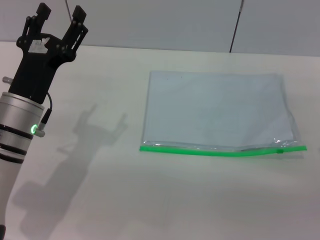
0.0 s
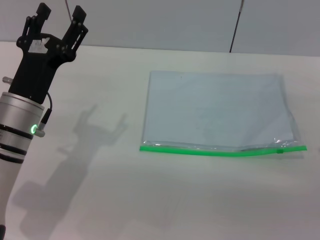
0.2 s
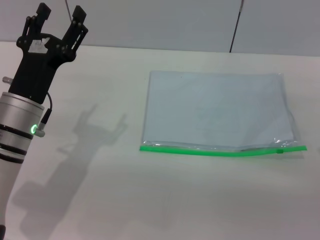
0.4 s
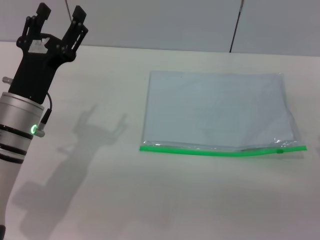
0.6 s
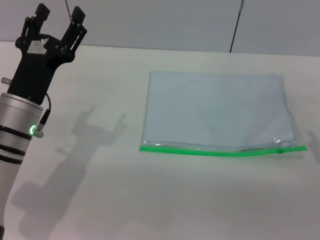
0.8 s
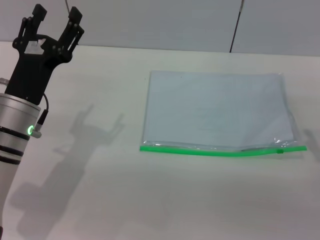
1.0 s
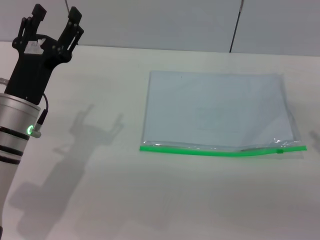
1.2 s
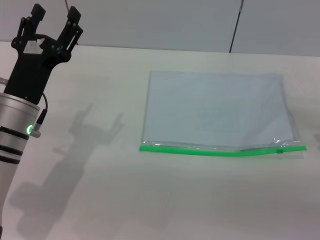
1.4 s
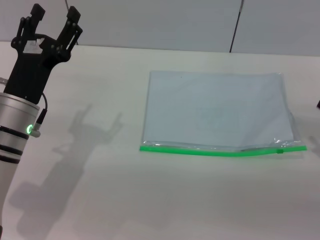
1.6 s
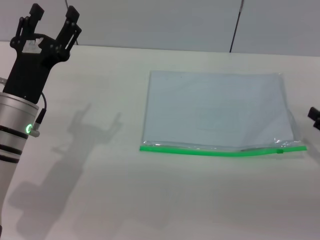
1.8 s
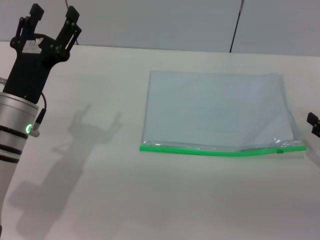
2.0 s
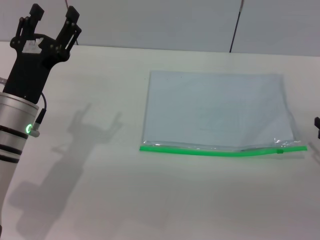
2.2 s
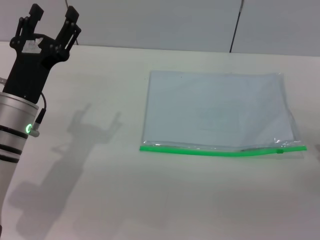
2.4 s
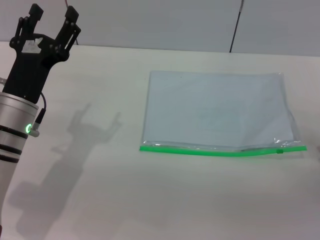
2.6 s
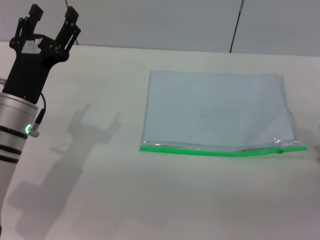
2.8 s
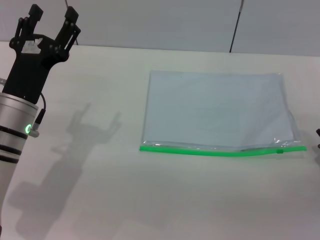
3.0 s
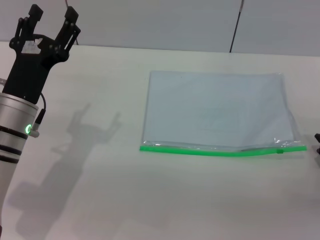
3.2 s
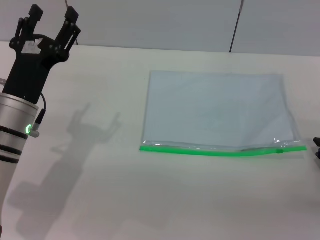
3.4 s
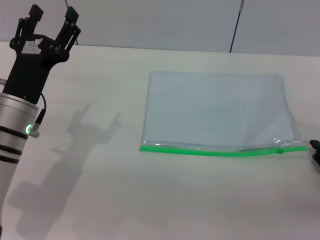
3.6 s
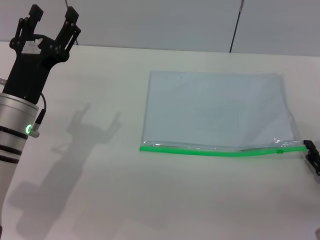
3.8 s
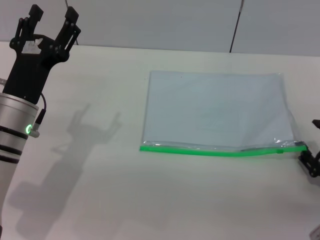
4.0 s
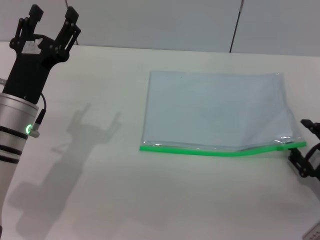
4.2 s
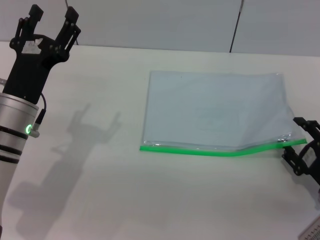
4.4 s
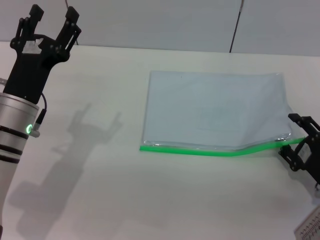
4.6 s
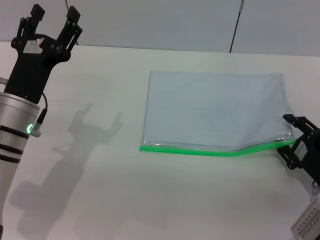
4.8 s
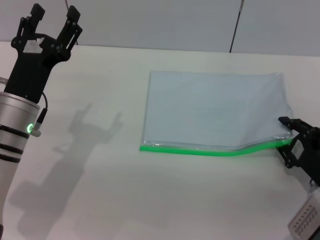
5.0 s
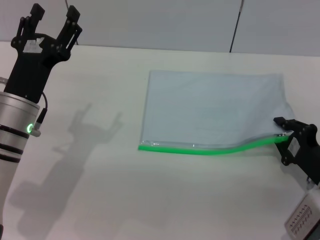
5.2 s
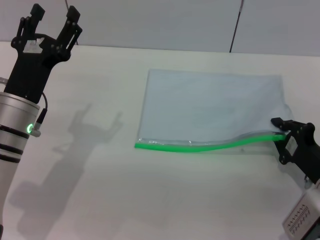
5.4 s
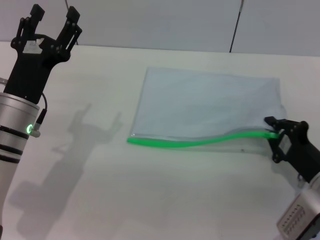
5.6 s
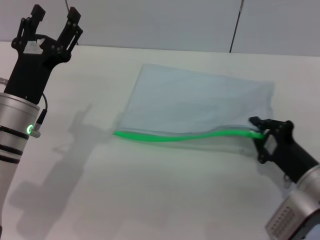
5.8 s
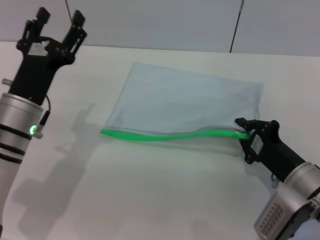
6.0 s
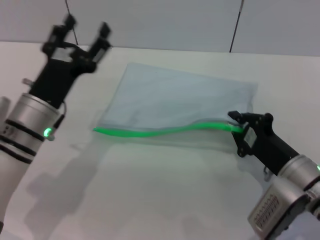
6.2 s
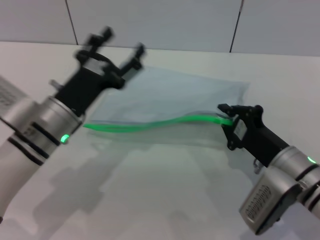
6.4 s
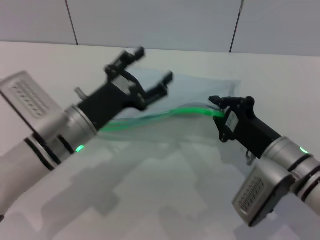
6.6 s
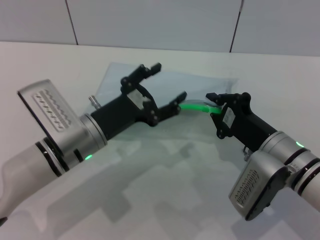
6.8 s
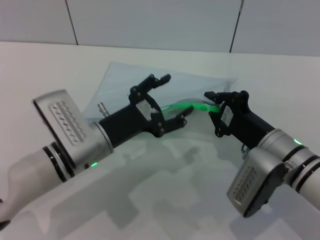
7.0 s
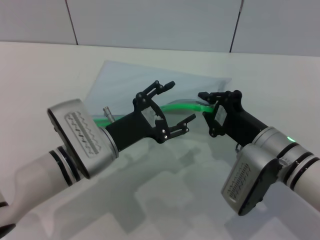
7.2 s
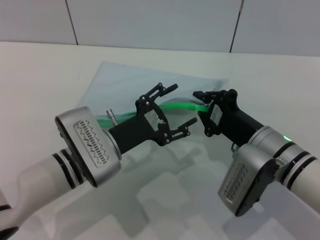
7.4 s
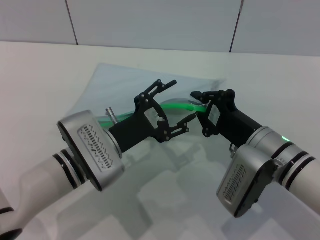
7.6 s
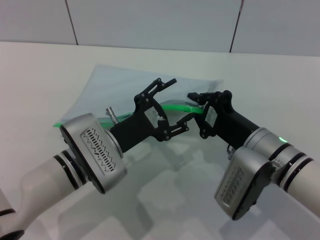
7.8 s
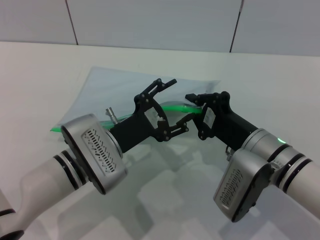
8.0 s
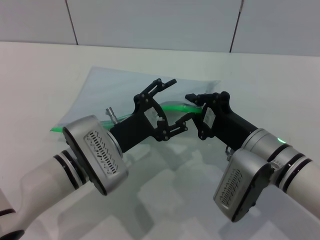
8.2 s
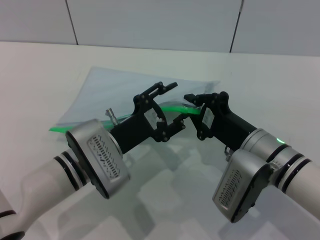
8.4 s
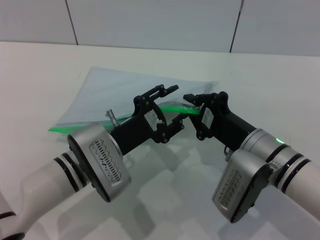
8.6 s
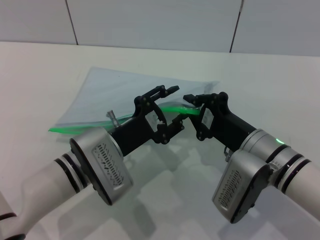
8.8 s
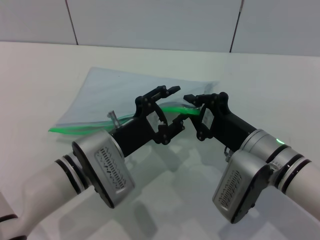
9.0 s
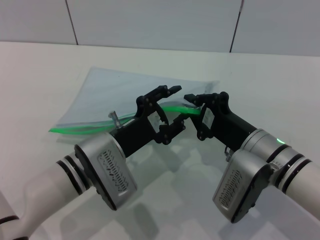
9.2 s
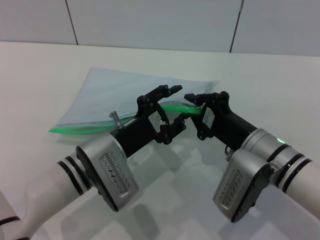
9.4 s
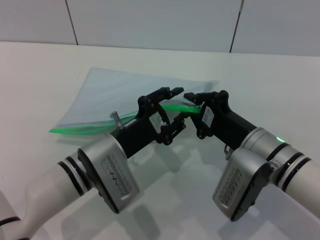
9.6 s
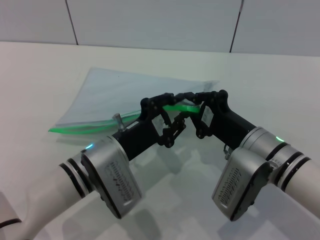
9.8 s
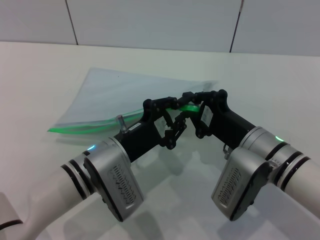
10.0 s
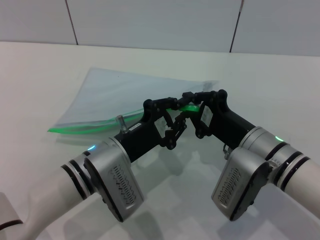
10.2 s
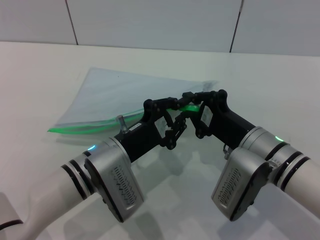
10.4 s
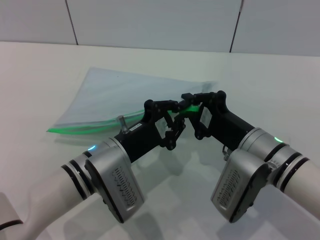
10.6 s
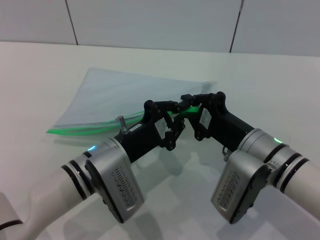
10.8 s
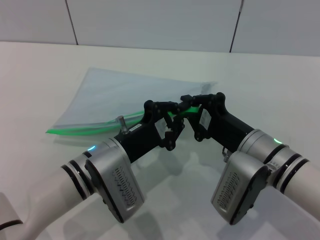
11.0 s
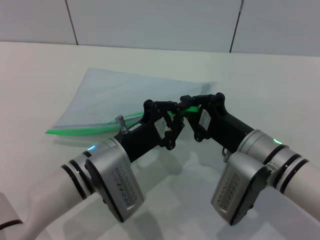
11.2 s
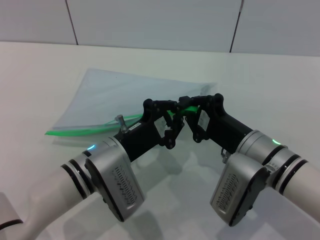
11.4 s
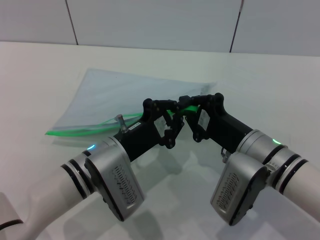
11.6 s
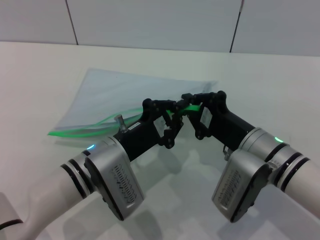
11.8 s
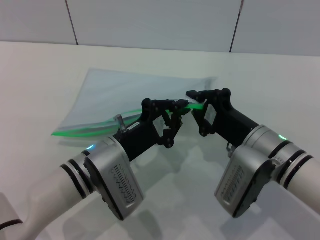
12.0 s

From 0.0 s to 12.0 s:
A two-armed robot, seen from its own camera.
Step, from 0.0 s to 6.4 s: Pick up the transparent plastic bag with the right gripper.
From 3.0 s to 4.4 s: The grippers stay close to where they were, moving slightly.
From 4.4 s to 6.0 s: The right gripper shifts about 5 cm to the left, and closes its fingers.
From 6.0 s to 7.6 s: The left gripper heads to the right, covering approximately 10 cm; the right gripper is displaced to the left by roughly 5 cm.
From 7.6 s to 9.0 s: The grippers move only a little.
From 9.0 s to 10.4 s: The left gripper closes.
From 10.4 s to 12.0 s: Neither gripper changes place.

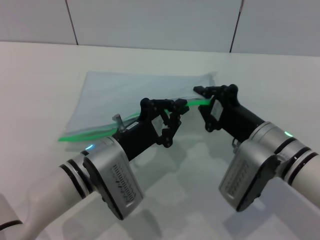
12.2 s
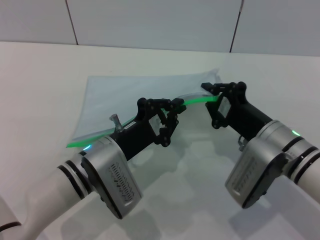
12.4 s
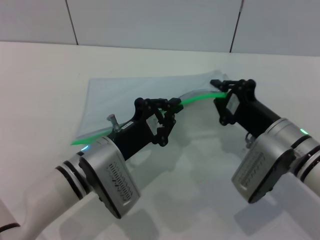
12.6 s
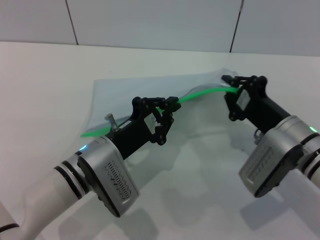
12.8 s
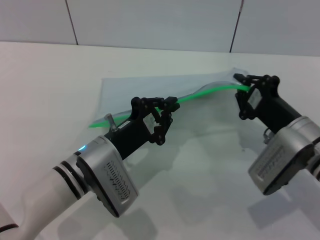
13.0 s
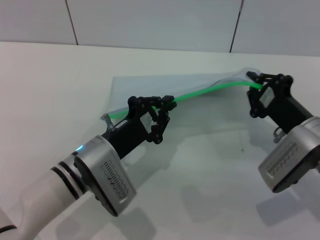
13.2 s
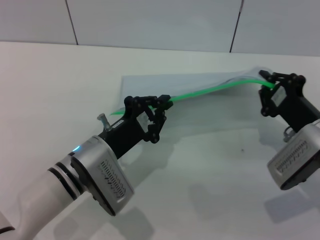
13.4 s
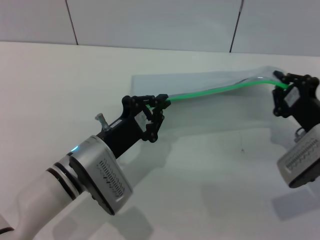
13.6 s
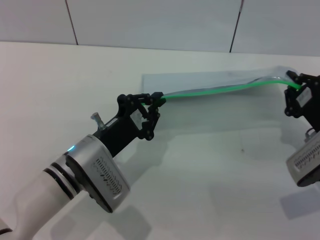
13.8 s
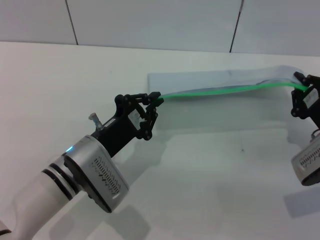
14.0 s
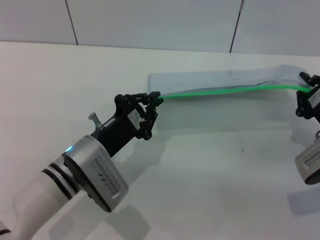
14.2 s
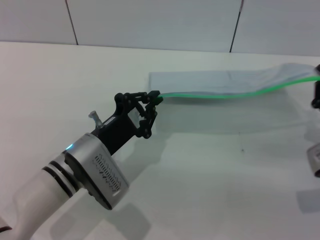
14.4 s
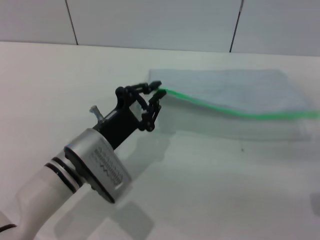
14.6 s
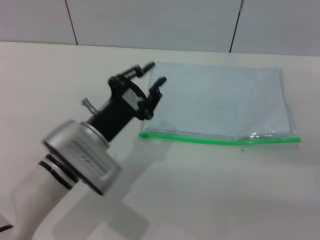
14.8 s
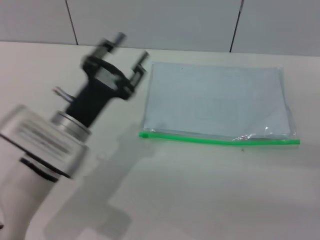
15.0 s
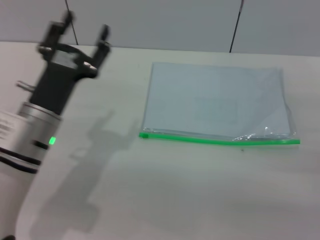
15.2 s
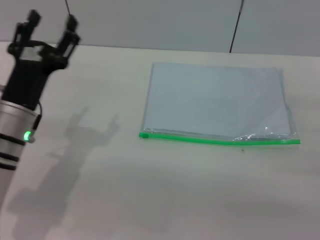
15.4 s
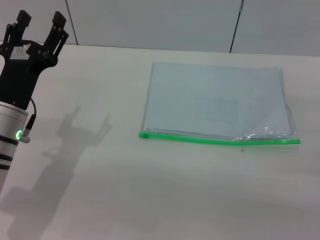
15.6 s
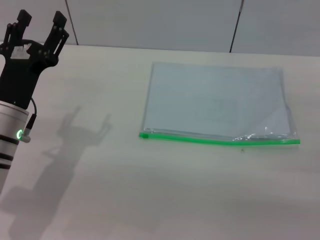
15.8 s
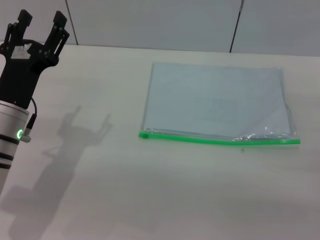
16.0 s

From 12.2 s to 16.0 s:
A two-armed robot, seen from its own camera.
Step, from 12.2 s to 14.4 s: Pulling up the zipper on the transparent plastic bag with the left gripper to close it.
Step, from 14.6 s to 14.8 s: Place the transparent plastic bag.
From 12.2 s to 13.4 s: The right gripper heads to the right, covering roughly 10 cm.
From 13.4 s to 14.8 s: The right gripper is displaced to the right by some 10 cm.
From 14.8 s to 16.0 s: The left gripper shifts roughly 10 cm to the left, and opens up. Meanwhile the right gripper opens up.
